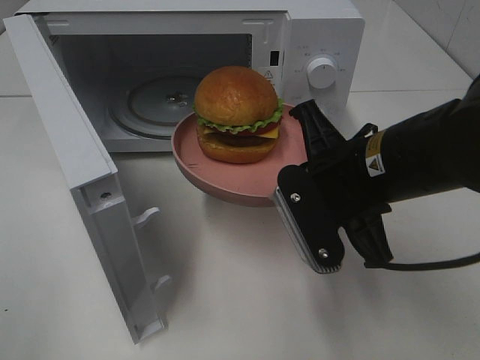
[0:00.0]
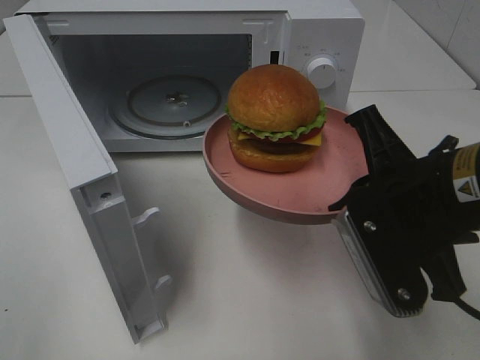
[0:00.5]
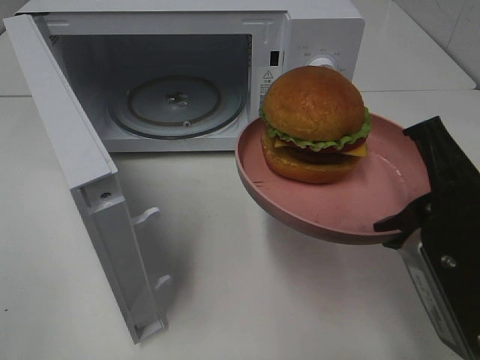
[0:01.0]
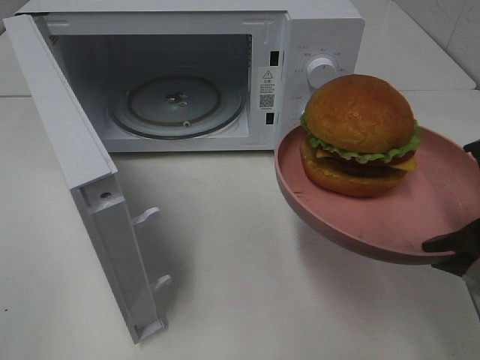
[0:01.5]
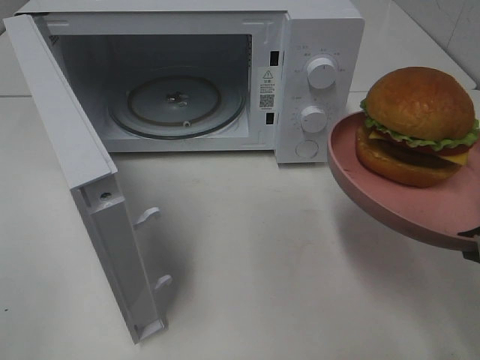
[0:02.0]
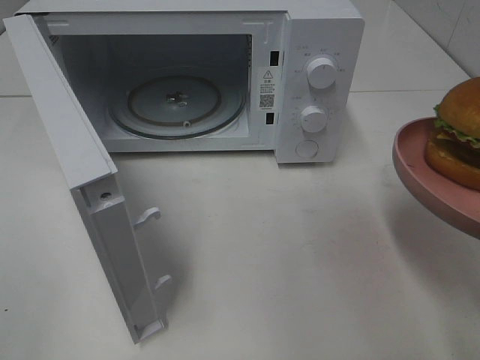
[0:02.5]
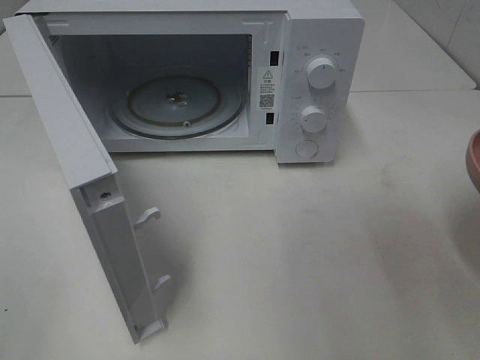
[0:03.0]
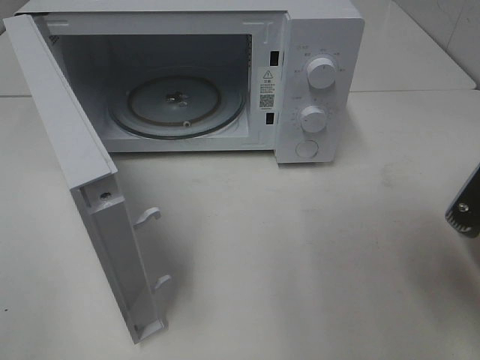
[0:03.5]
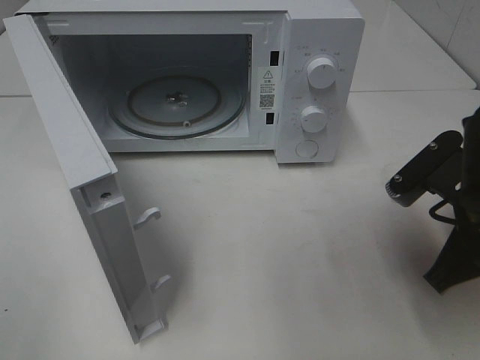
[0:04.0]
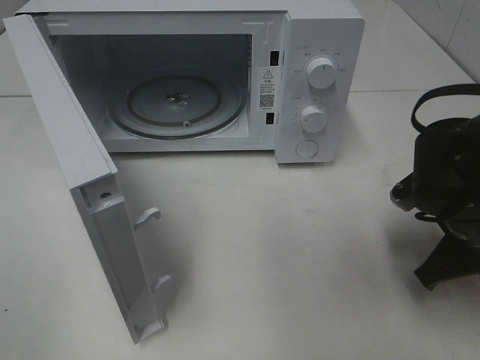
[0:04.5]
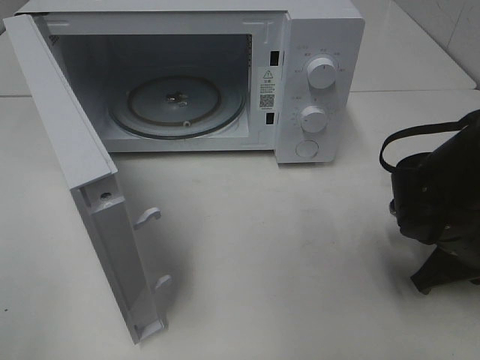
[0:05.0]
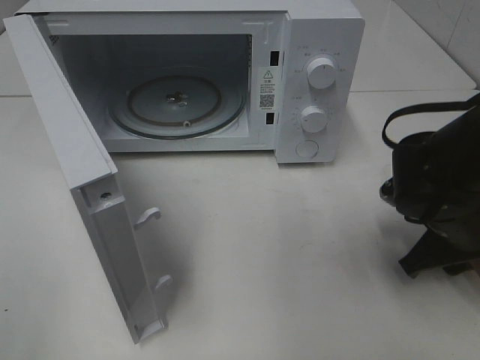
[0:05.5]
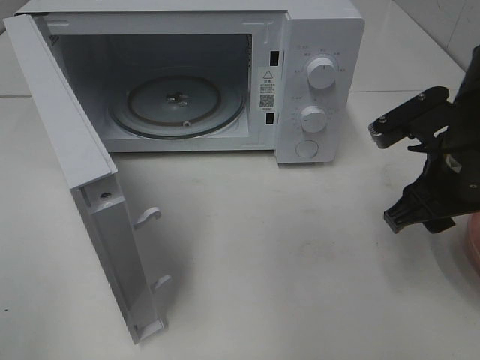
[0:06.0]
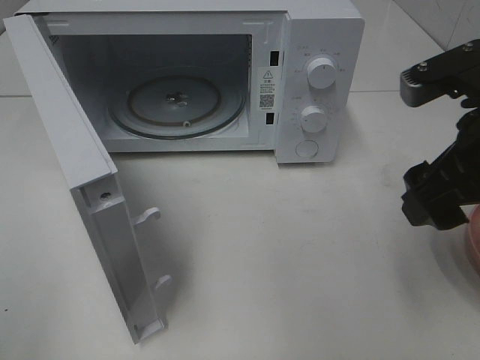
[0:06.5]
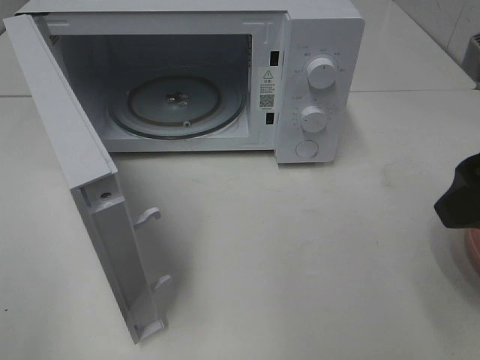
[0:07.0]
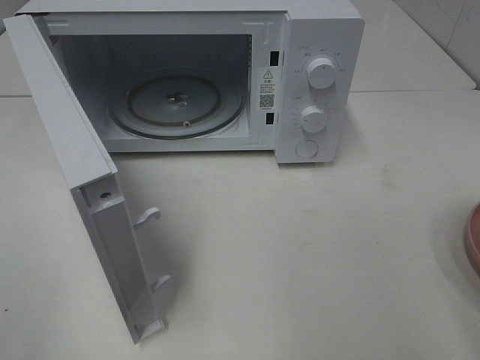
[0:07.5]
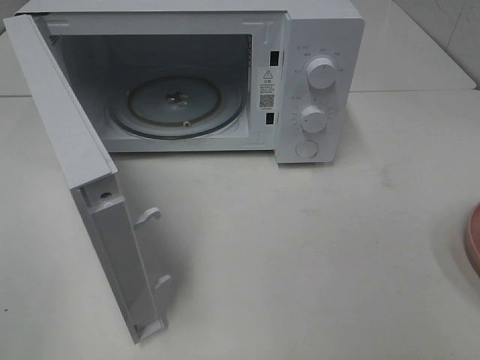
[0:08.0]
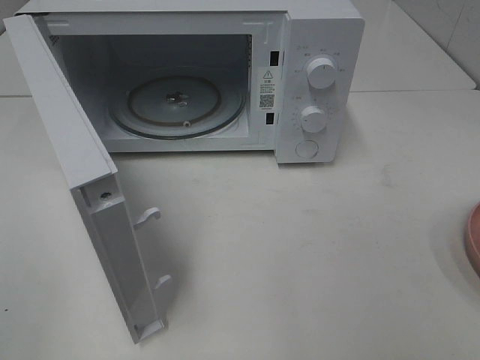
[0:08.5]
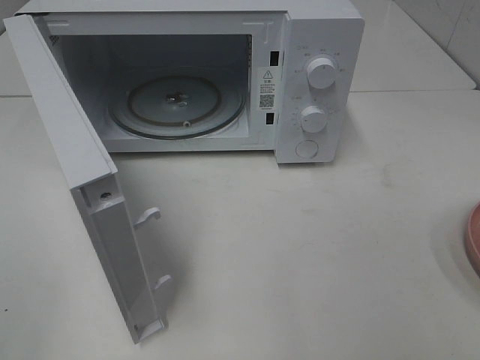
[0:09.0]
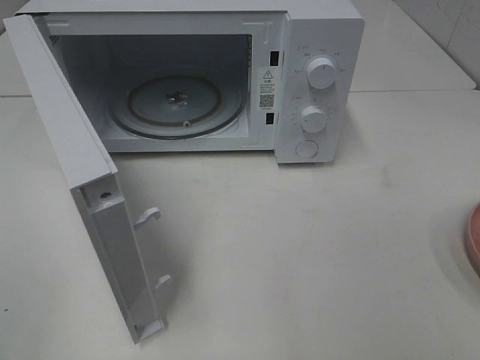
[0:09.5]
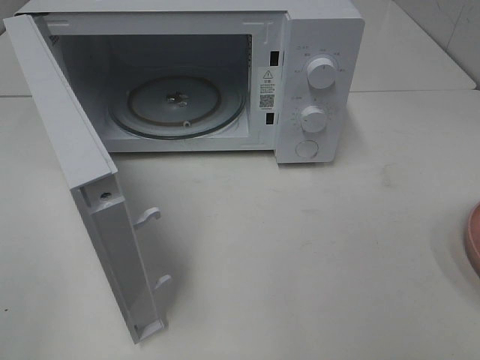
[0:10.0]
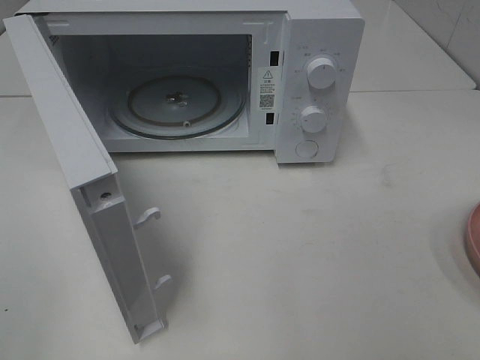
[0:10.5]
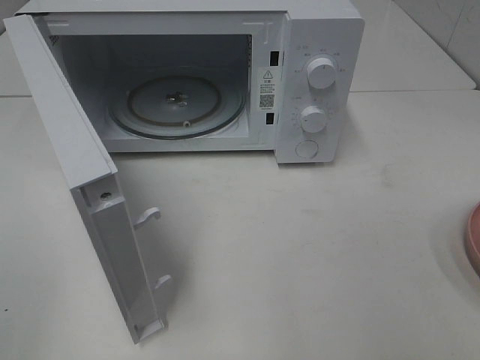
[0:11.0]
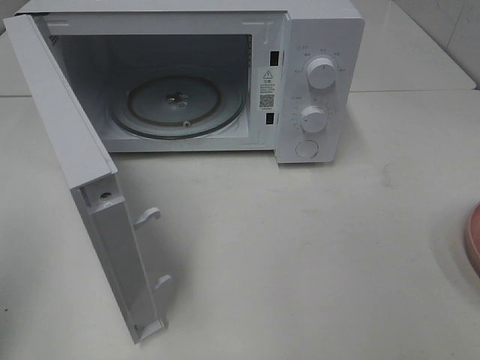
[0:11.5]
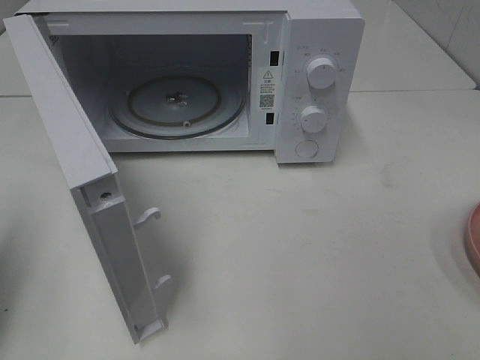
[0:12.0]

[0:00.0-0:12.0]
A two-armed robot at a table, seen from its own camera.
Task of the whole recording: Heat the burger.
Step, 0:00.0 to 0:05.5: Right hand: place the plate on the table.
0:00.0 to 0:02.0: The right gripper travels to the right and backward by roughly 15 cm.
0:02.0 to 0:04.0: The right gripper shifts approximately 10 cm forward and downward.
0:04.0 to 0:06.0: The right gripper reaches approximately 10 cm downward, then returns, and opens its fingers.
0:06.0 to 0:08.0: The right gripper is displaced backward, upward and to the right by approximately 20 cm.
0:10.0 to 0:12.0: The left gripper is displaced forward by some 15 cm, and closes its fingers.

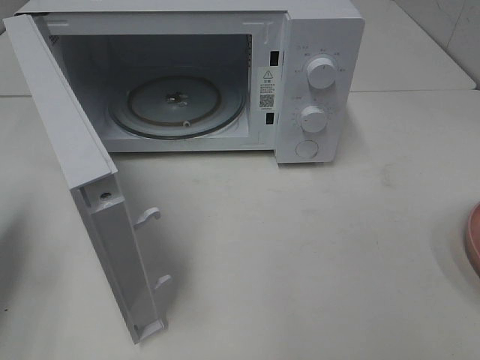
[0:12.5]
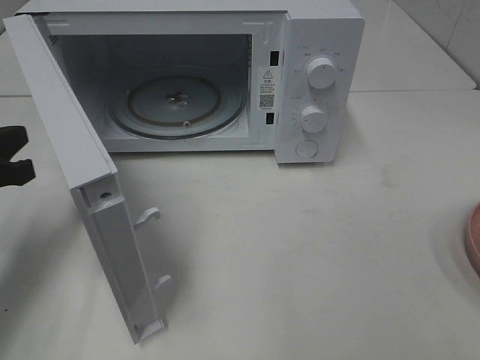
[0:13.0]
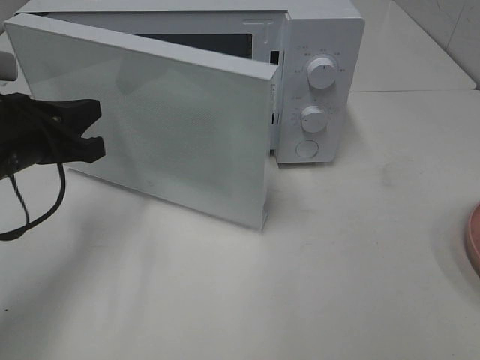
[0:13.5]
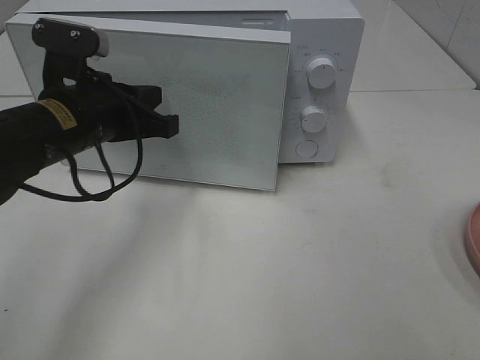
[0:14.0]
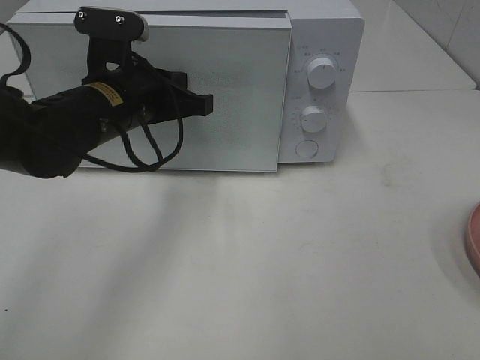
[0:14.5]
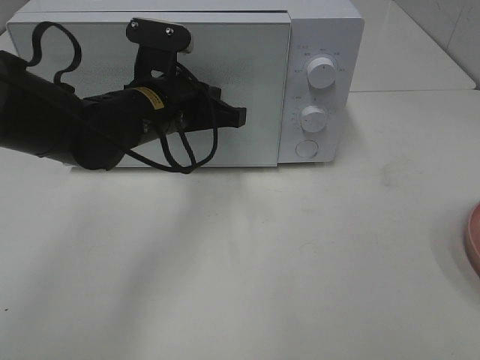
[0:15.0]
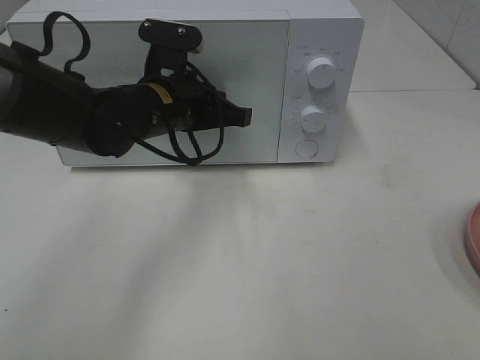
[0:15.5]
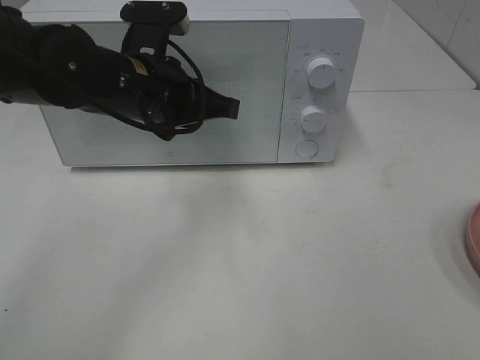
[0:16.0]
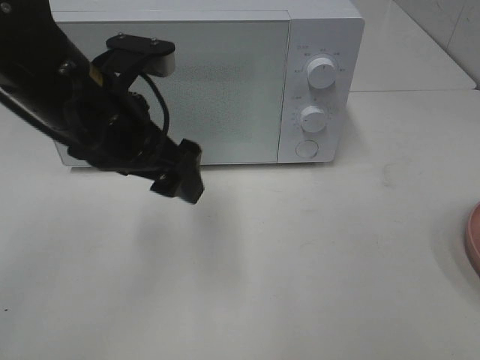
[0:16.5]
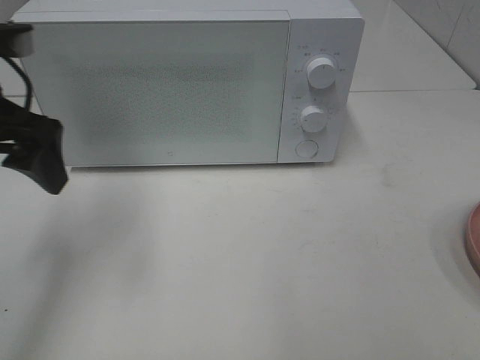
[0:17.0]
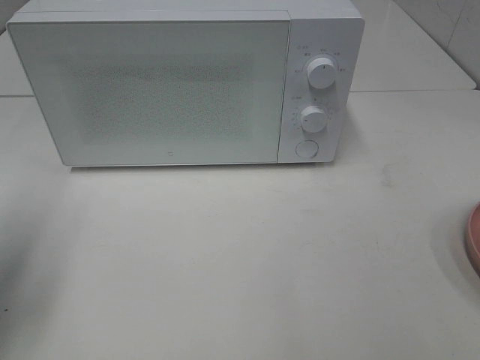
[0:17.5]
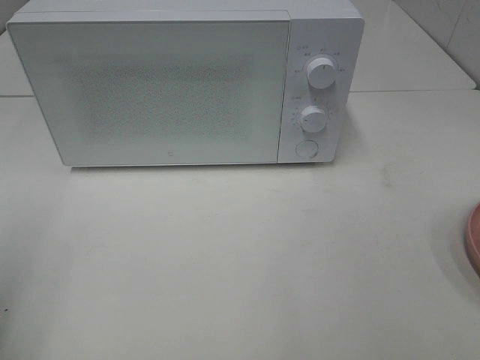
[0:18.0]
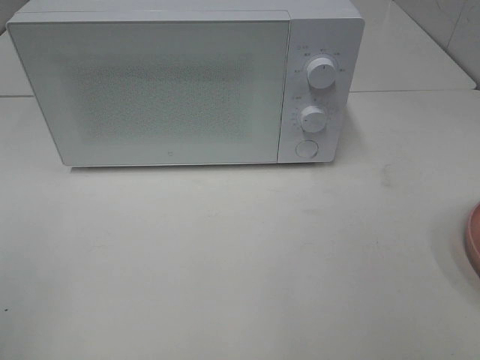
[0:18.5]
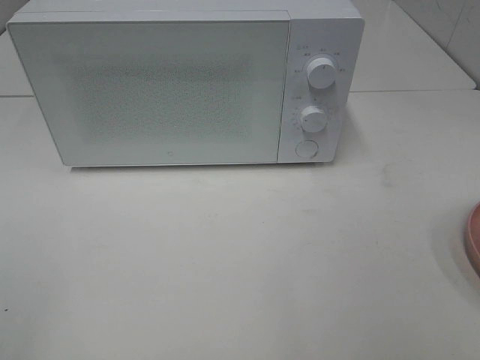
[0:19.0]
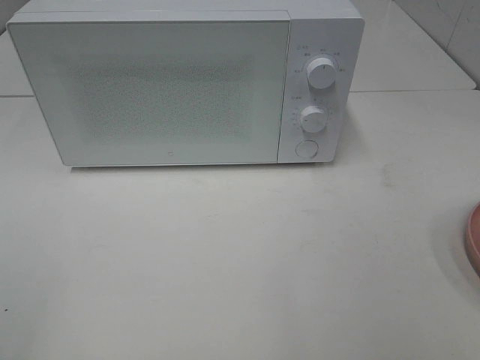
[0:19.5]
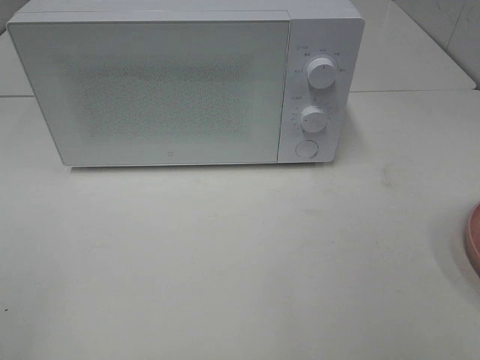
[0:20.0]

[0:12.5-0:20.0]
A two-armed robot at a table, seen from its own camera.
Task of the whole recording: Heat the burger.
Step, 0:12.5 to 0:16.0: Left hand: close the microwave door.
0:12.5 to 0:14.5: The left gripper goes roughly 25 cm to the right and forward.
0:14.5 to 0:16.5: The left gripper shifts approximately 5 cm backward, and opens up.
0:16.5 to 0:18.0: The left gripper moves to the left and backward, approximately 25 cm.

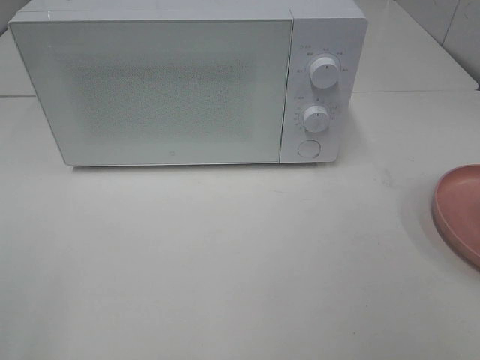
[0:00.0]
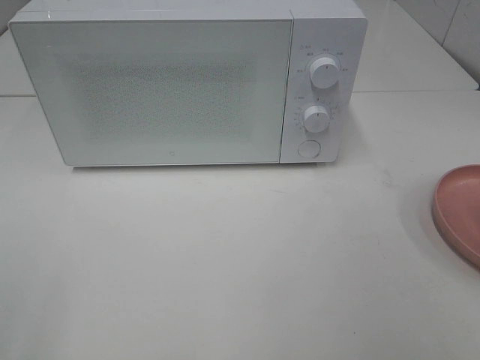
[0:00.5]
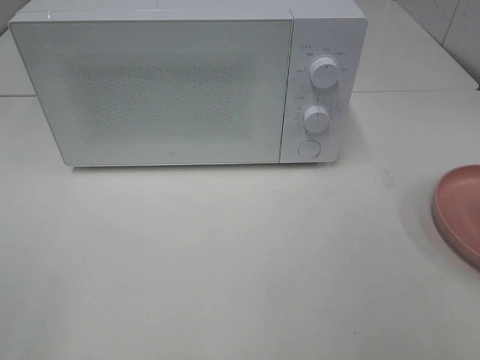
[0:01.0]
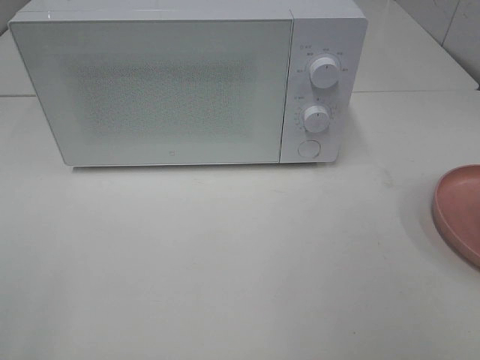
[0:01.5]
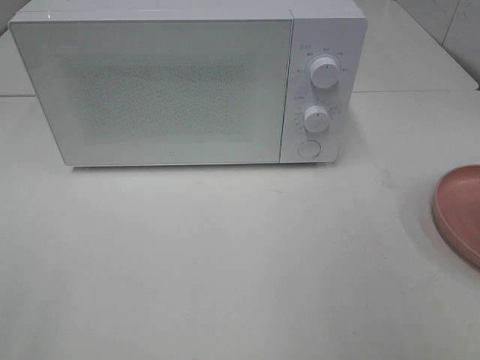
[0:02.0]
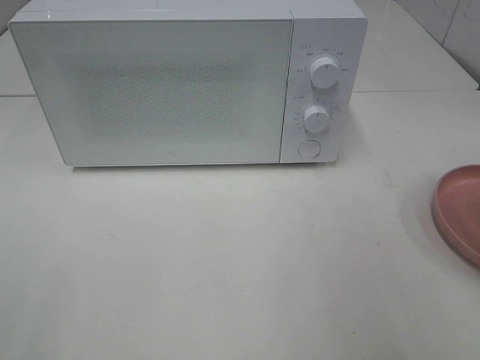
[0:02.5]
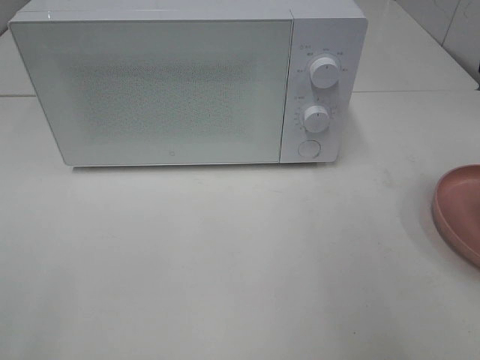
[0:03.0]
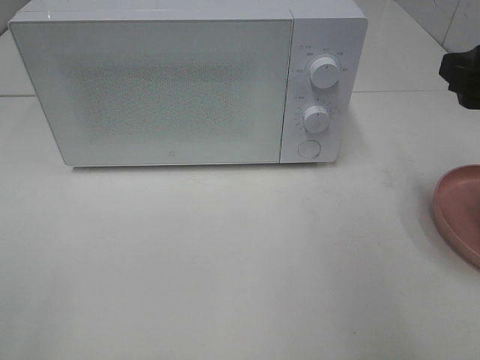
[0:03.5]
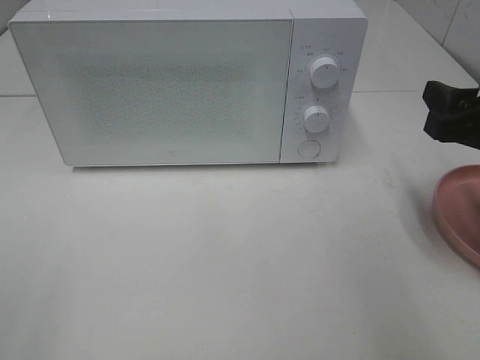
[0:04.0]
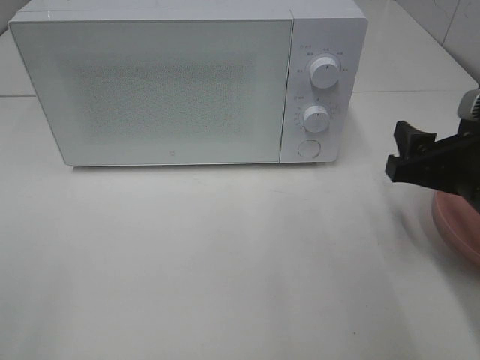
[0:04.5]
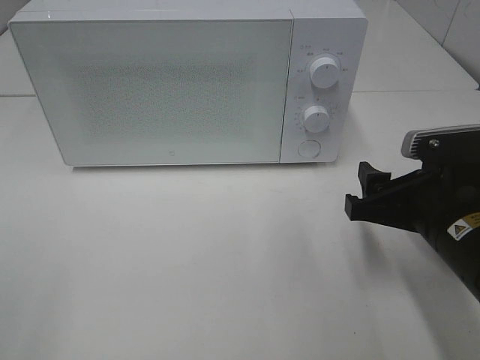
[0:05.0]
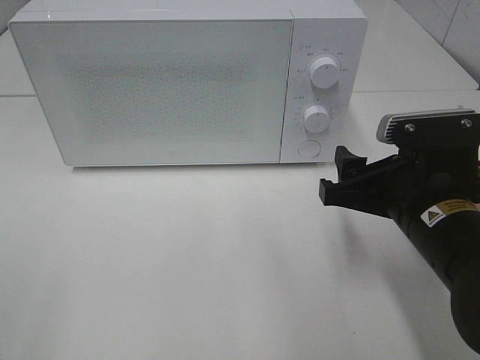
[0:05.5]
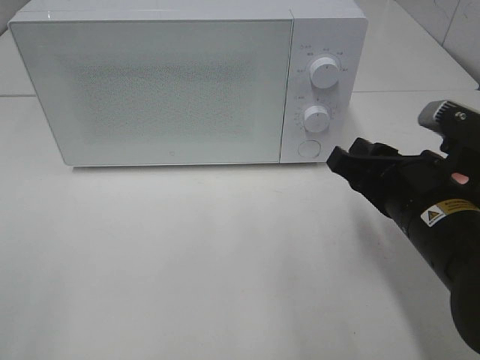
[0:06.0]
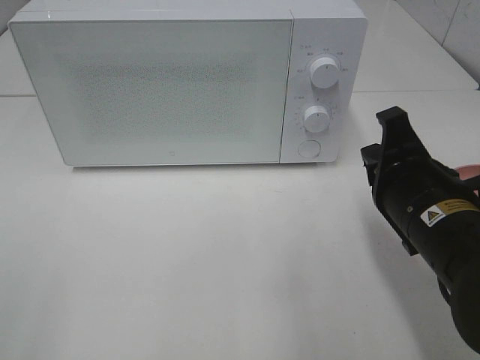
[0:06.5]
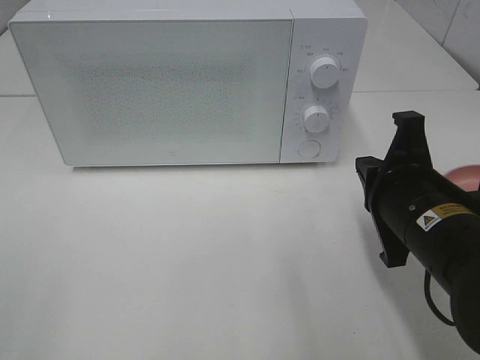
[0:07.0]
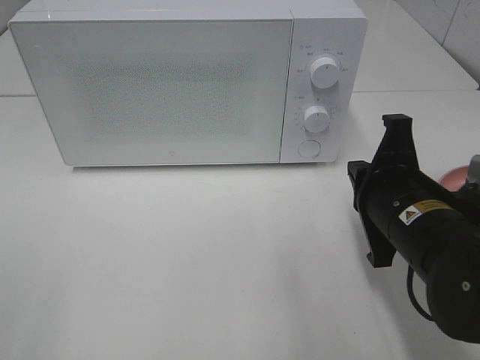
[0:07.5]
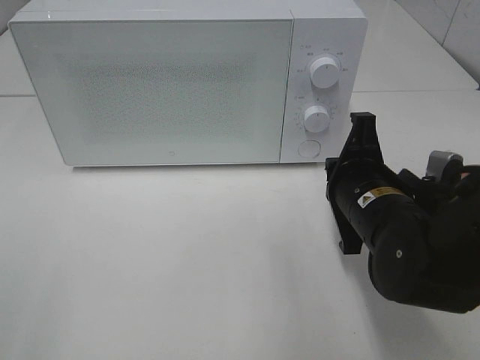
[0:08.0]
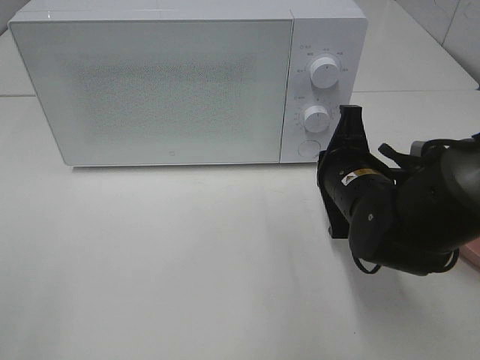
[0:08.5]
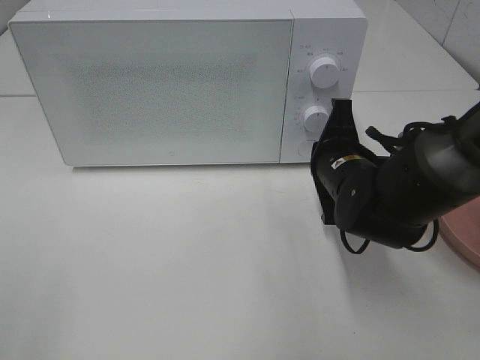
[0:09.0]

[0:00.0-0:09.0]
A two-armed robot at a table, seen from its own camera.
Task of the whole recording: Heat the burger.
0:02.0 to 0:04.5: The right gripper goes roughly 20 cm downward and forward.
0:04.5 to 0:07.0: The right gripper goes about 5 cm to the left, and closes its fingers.
0:07.0 to 0:09.0: The right gripper moves forward, roughly 10 cm.
